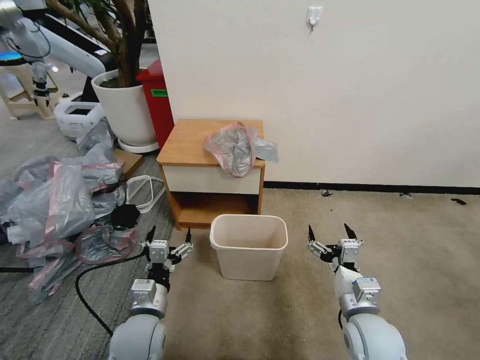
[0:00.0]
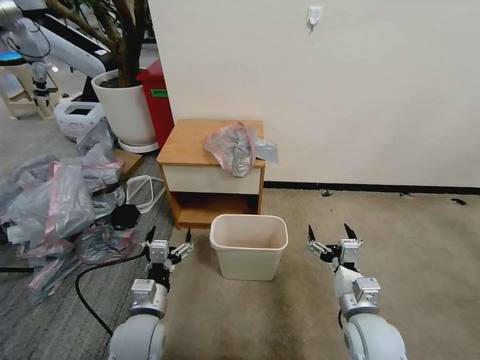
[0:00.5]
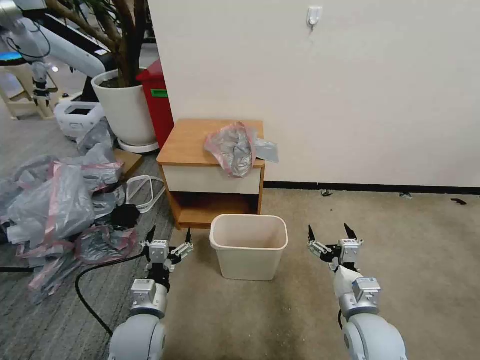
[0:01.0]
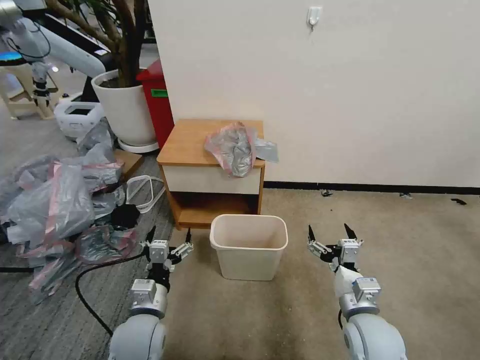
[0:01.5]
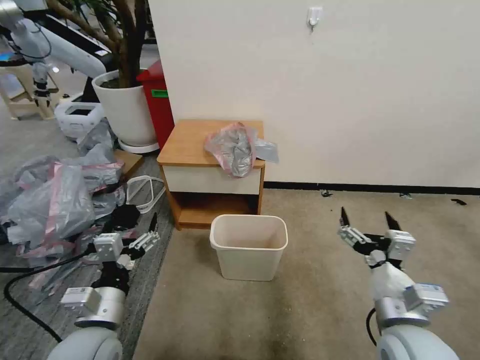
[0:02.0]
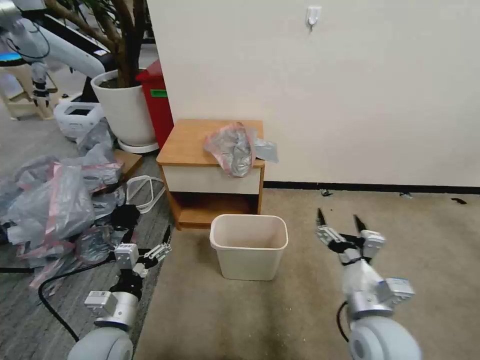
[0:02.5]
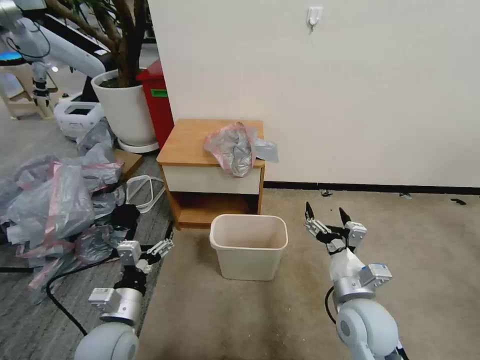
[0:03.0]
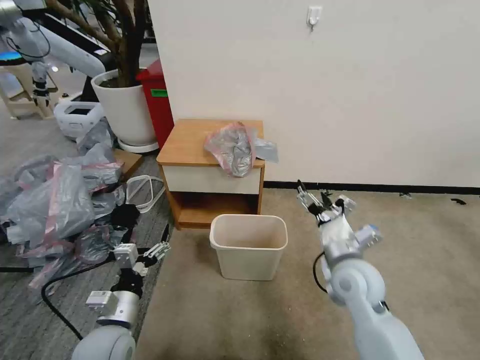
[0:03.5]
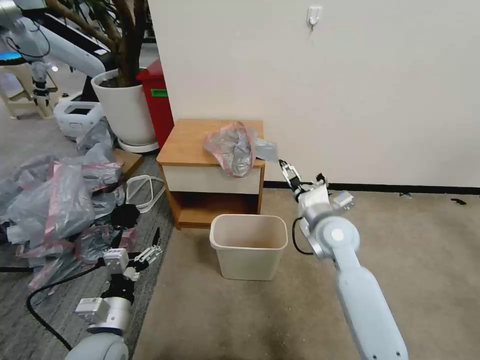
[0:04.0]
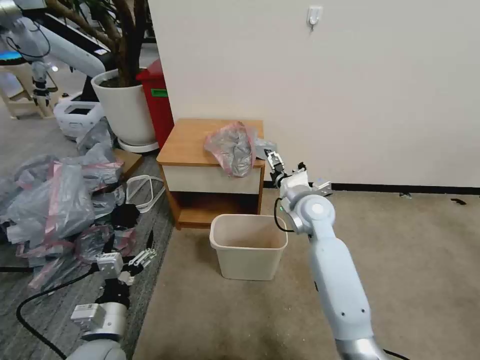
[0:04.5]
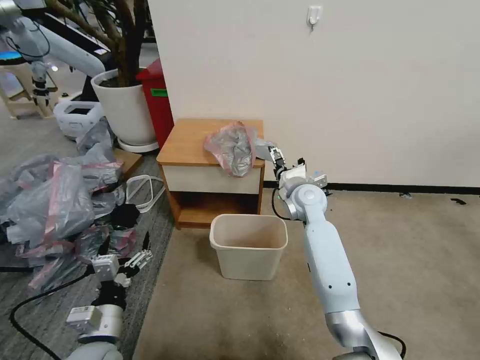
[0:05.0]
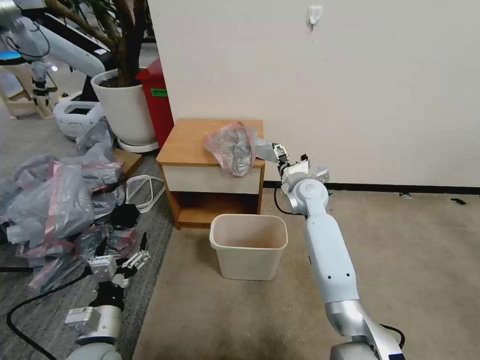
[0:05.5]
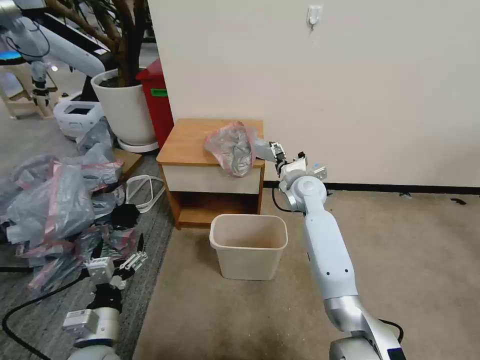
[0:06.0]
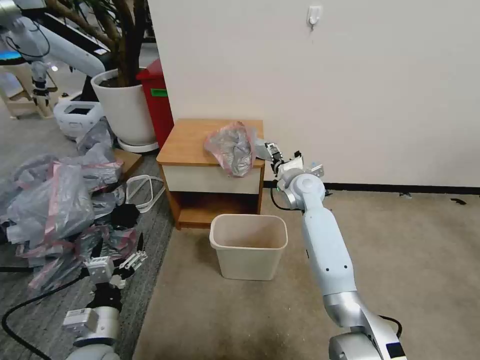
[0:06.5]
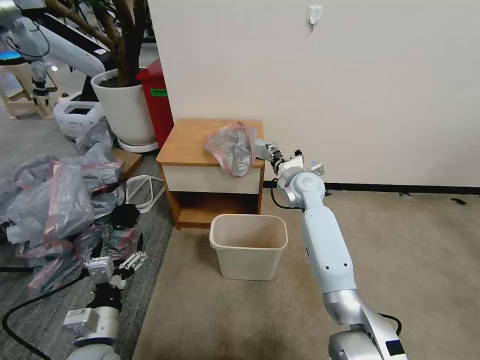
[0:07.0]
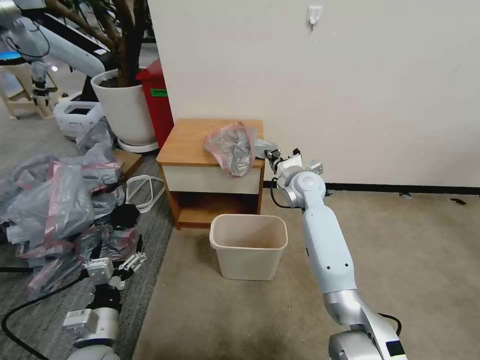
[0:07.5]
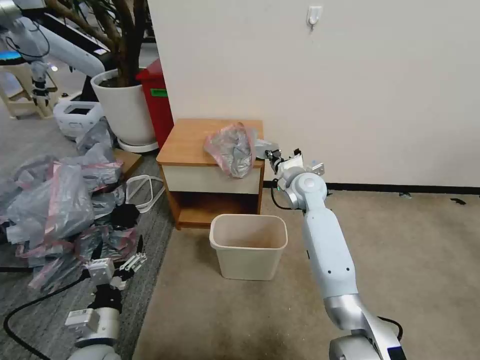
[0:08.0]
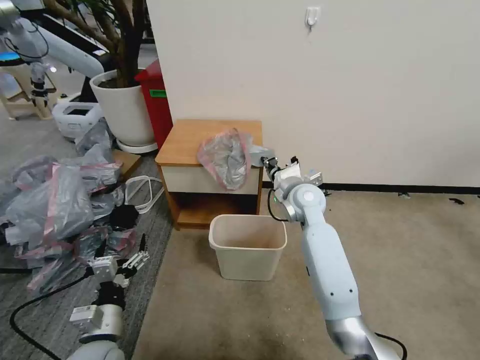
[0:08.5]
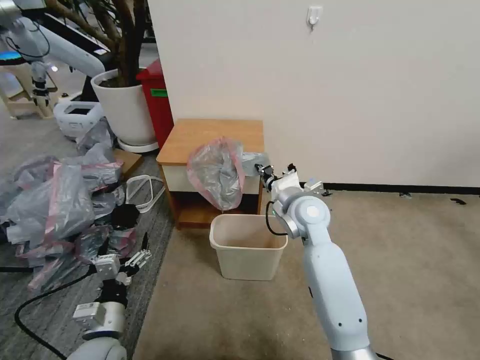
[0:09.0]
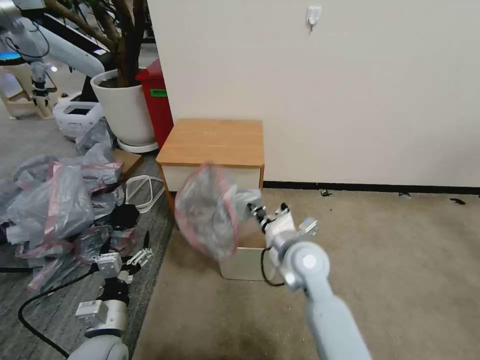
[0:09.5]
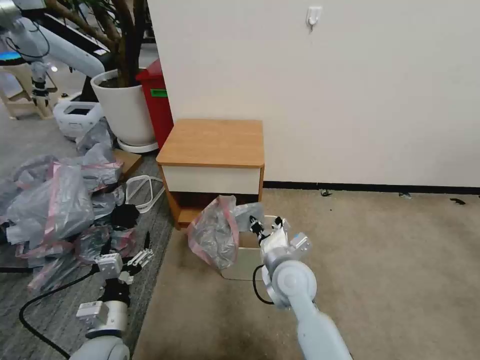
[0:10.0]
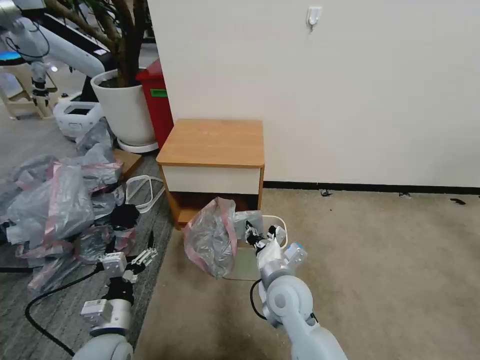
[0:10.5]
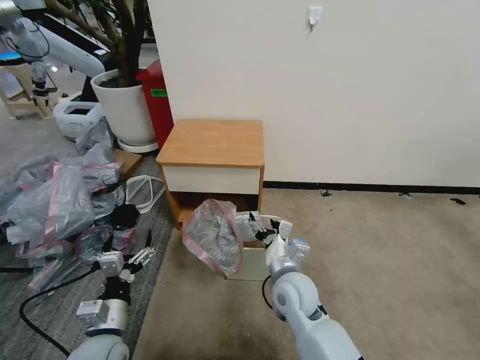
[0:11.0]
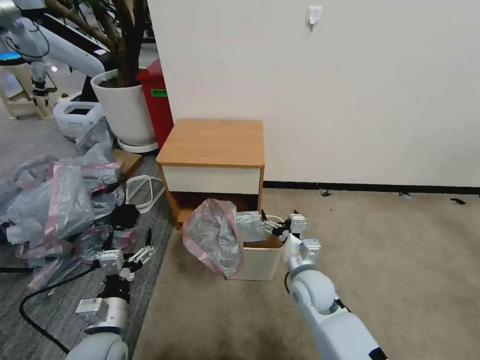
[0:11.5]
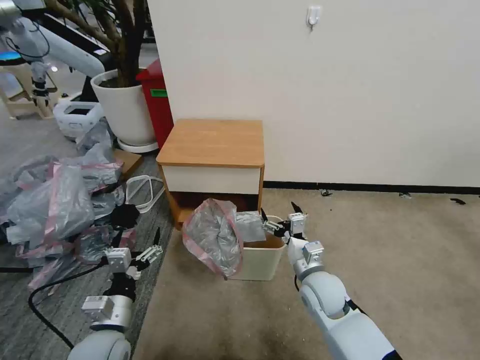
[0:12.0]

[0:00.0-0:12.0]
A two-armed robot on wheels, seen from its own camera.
Task of the whole recording: Pick up the garbage bag from the table and place it over the trash can.
0:02.0 to 0:04.0: The left gripper travels downward by approximately 5 cm; the right gripper travels forward by roughly 20 cm.
0:04.0 to 0:06.0: The right gripper travels forward by roughly 15 cm.
0:06.0 to 0:08.0: The right gripper closes its fingers.
0:08.0 to 0:10.0: The right gripper goes roughly 20 cm backward.
0:10.0 to 0:12.0: The right gripper travels to the right and downward by about 10 cm, and opens.

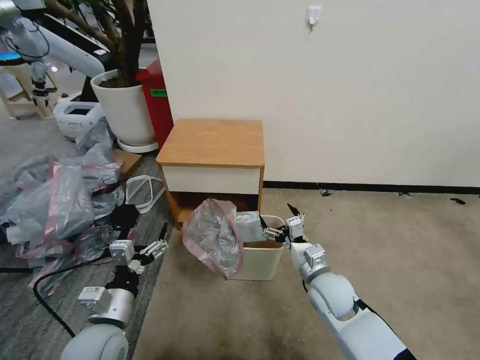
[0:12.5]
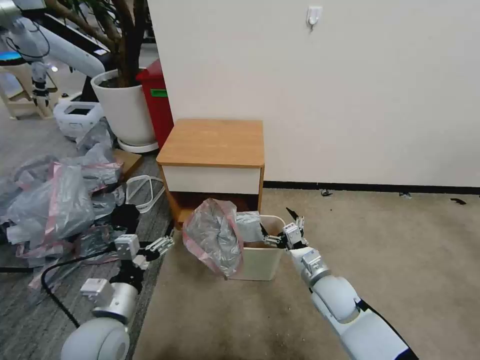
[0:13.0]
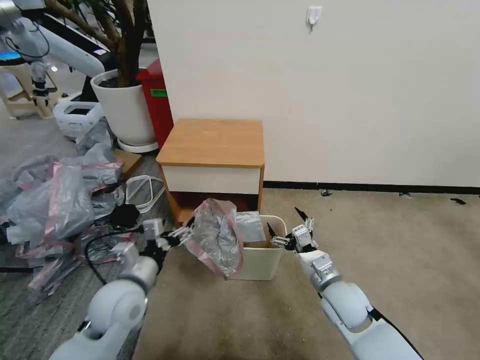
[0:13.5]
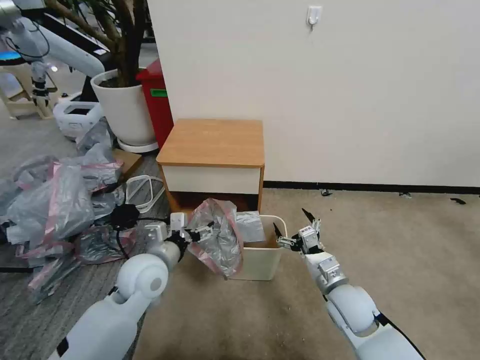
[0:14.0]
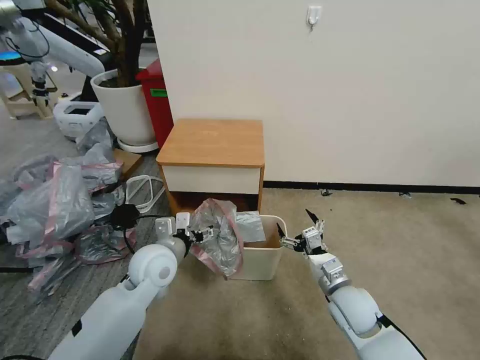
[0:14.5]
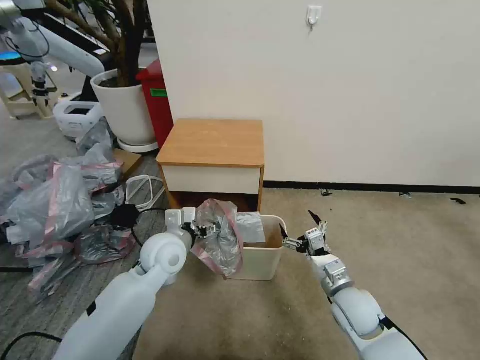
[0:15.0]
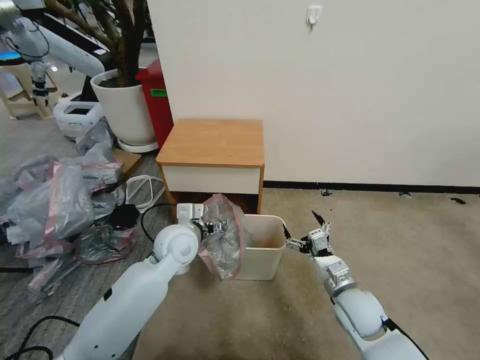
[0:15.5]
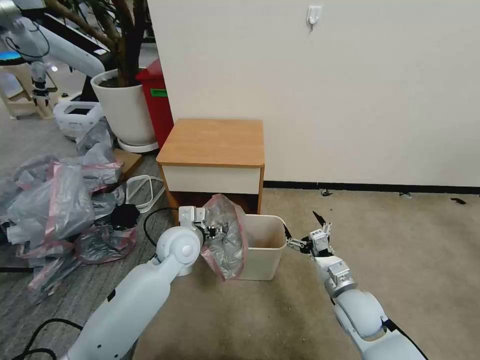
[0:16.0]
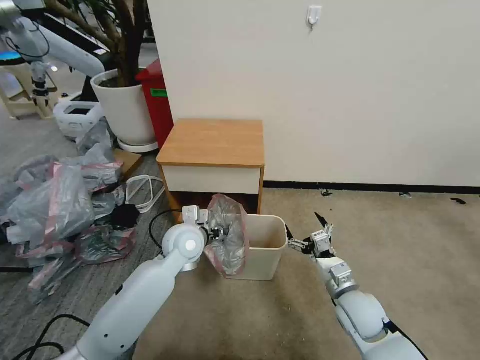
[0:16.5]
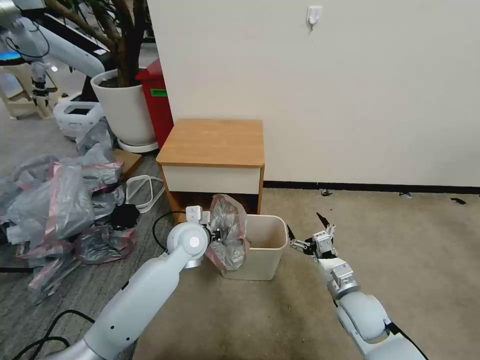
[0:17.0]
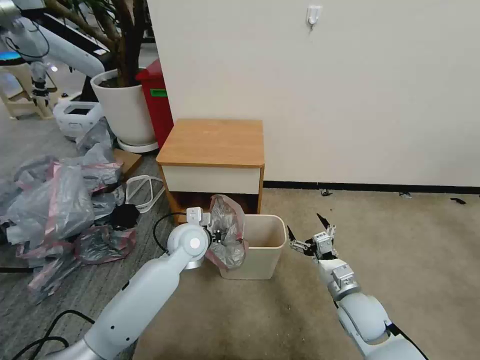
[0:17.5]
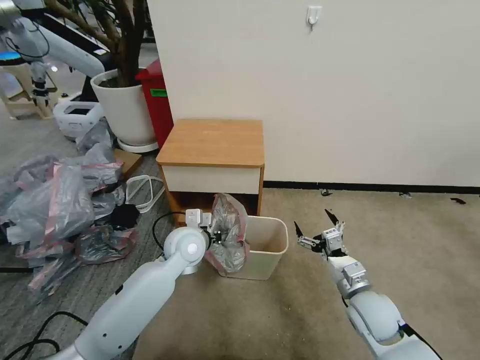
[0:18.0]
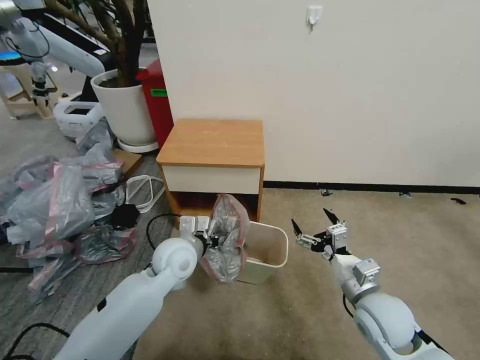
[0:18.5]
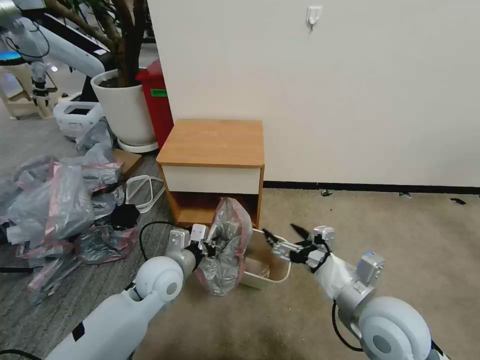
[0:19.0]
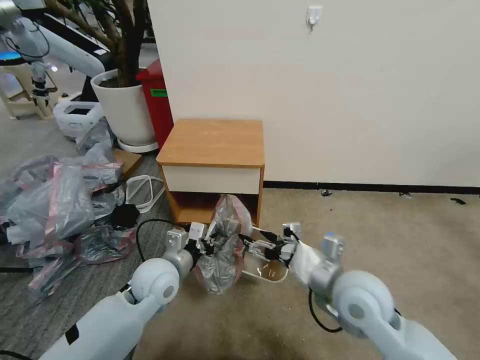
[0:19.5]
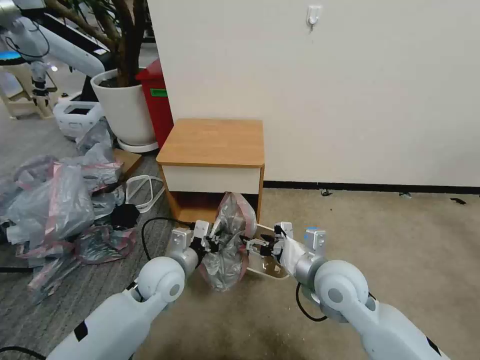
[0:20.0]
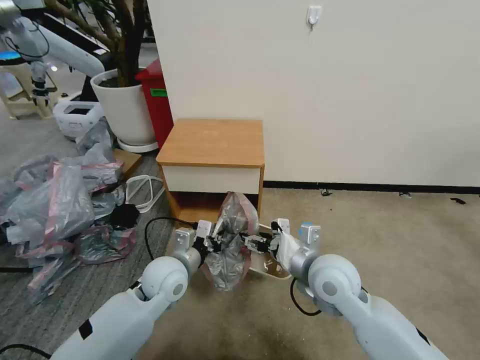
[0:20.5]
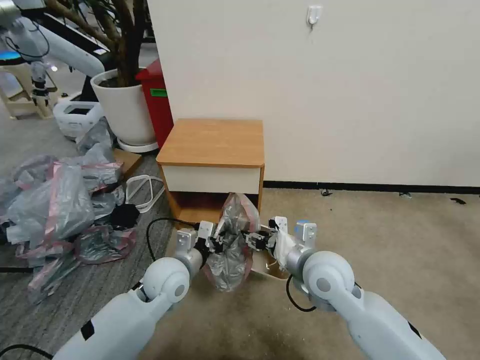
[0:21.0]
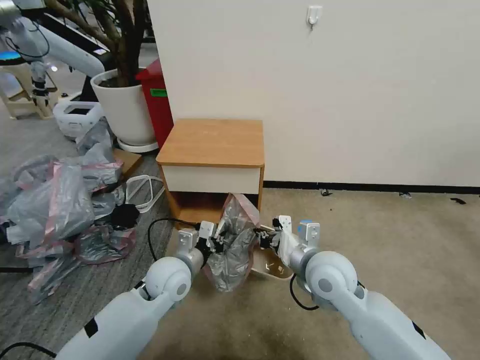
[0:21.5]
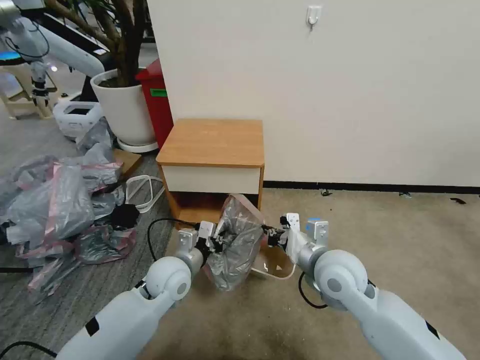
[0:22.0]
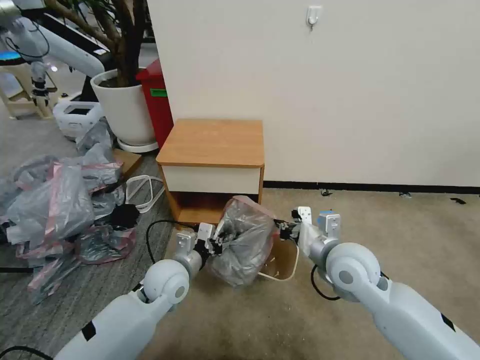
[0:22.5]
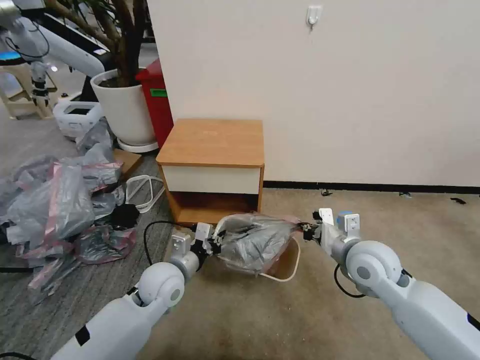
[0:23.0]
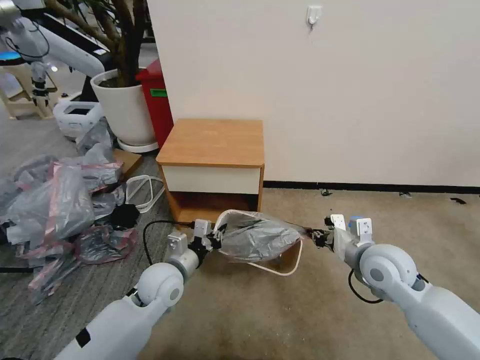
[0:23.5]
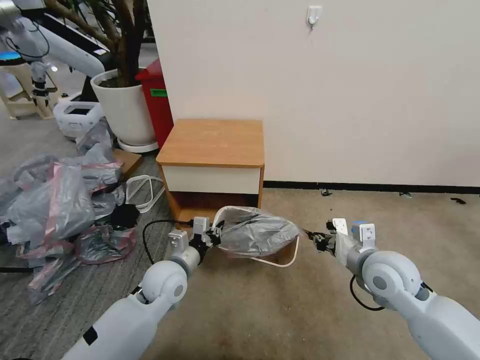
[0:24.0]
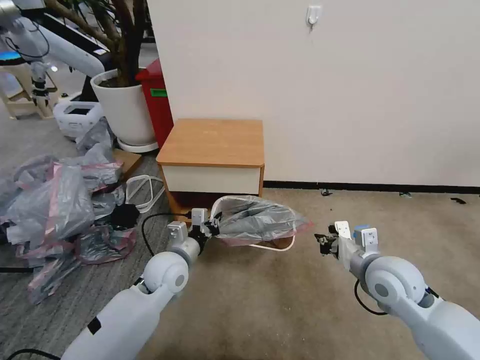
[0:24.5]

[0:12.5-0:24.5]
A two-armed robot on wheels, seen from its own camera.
Task of the whole recording: Pick up the garbage bag from the table and place it over the trash can.
0:12.5 to 0:14.5: The right gripper changes place by approximately 5 cm; the left gripper is displaced forward and to the right by about 15 cm.
0:14.5 to 0:16.5: The left gripper goes roughly 10 cm forward and to the right.
0:16.5 to 0:18.5: The right gripper heads upward, covering roughly 5 cm. The left gripper closes.
0:18.5 to 0:20.5: The right gripper travels to the left, upward and forward by roughly 15 cm.
0:20.5 to 0:22.5: The right gripper closes its fingers.
0:22.5 to 0:24.5: The right gripper is displaced to the right by approximately 10 cm.

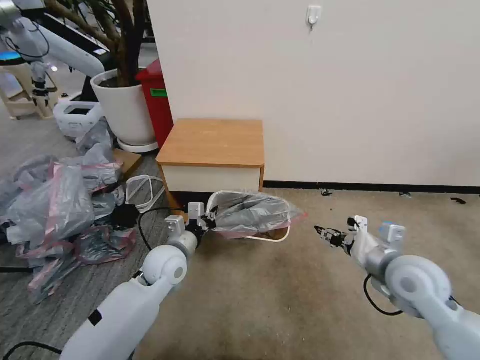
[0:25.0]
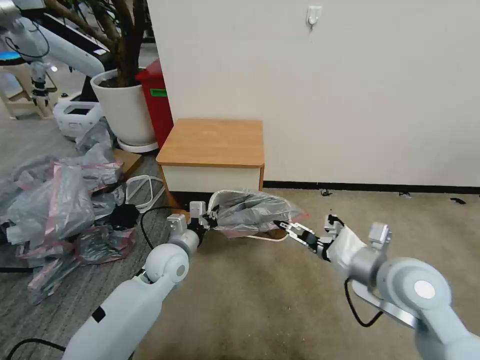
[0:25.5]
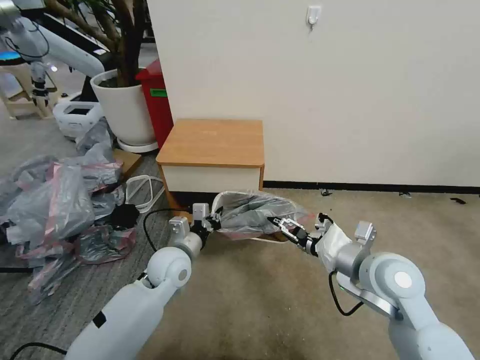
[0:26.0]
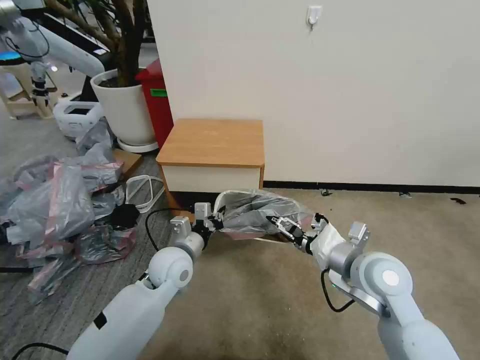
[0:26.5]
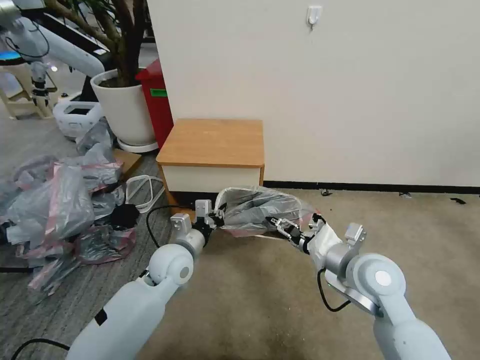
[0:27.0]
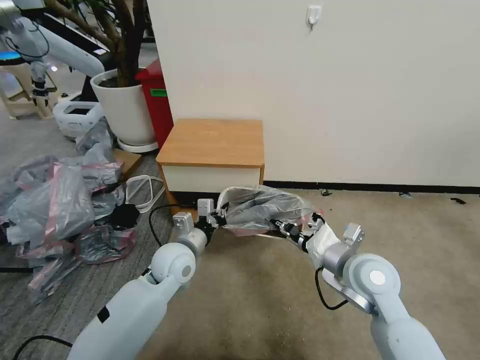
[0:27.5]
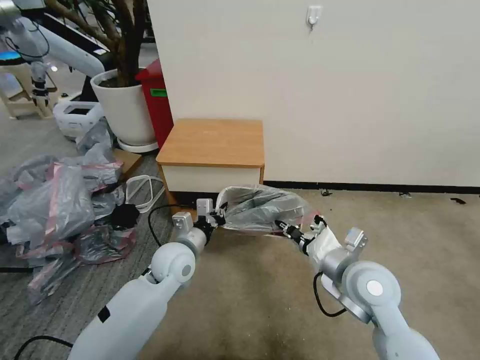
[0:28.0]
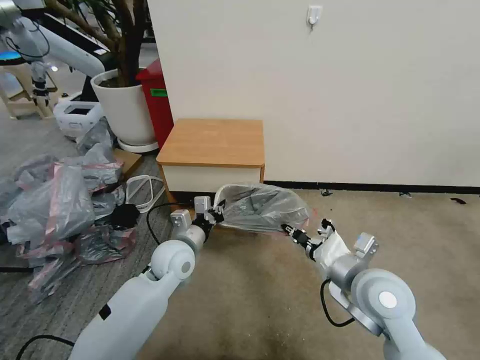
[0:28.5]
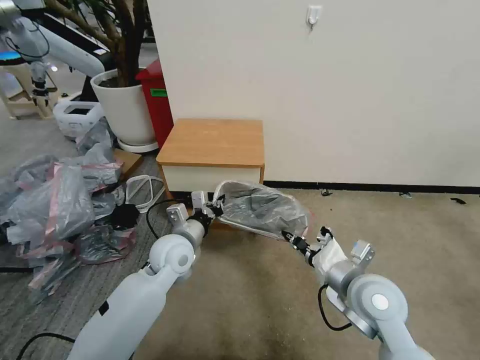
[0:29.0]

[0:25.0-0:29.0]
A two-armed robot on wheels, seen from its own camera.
Task of the whole recording: Pick up the garbage bag from the table and place it over the trash can.
0:25.0 to 0:27.0: The right gripper goes approximately 10 cm to the left.
0:27.0 to 0:29.0: The right gripper closes its fingers.
